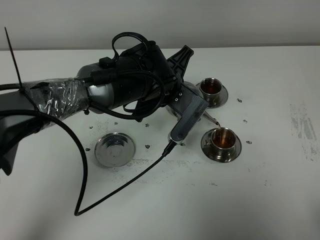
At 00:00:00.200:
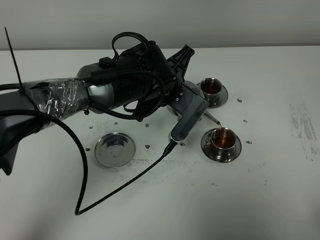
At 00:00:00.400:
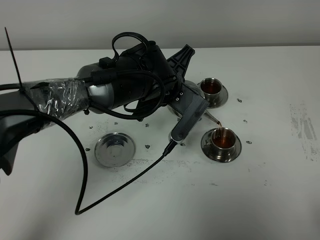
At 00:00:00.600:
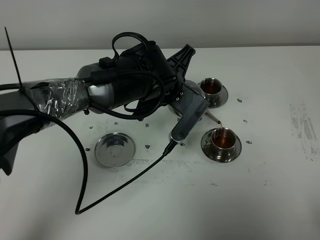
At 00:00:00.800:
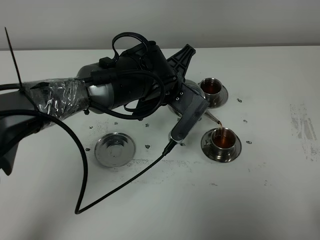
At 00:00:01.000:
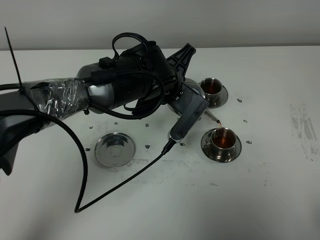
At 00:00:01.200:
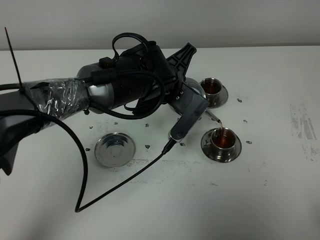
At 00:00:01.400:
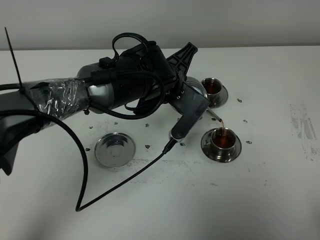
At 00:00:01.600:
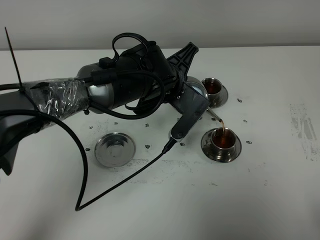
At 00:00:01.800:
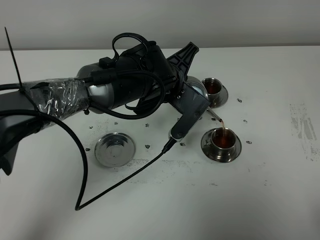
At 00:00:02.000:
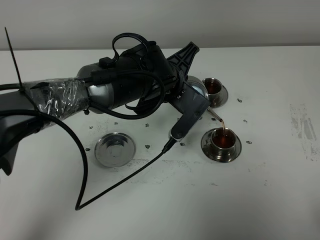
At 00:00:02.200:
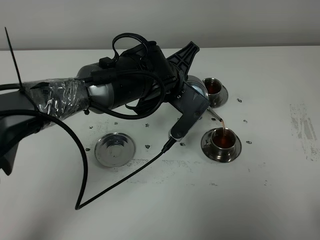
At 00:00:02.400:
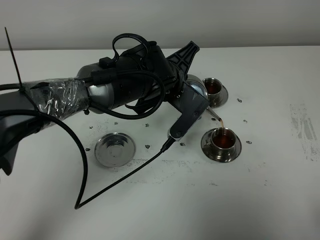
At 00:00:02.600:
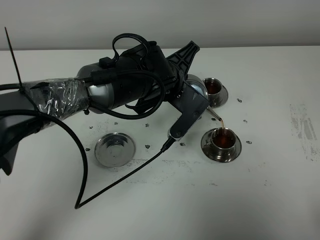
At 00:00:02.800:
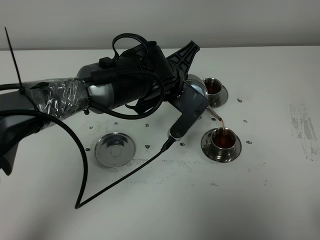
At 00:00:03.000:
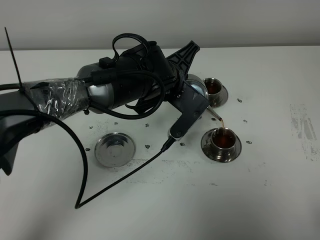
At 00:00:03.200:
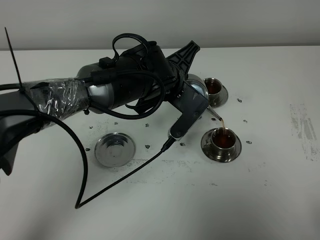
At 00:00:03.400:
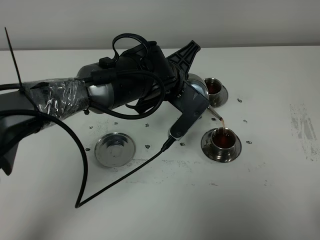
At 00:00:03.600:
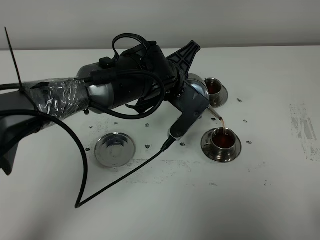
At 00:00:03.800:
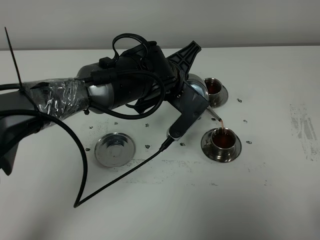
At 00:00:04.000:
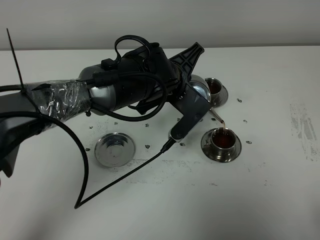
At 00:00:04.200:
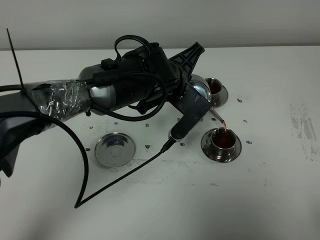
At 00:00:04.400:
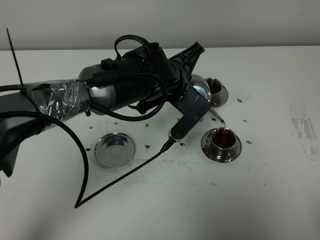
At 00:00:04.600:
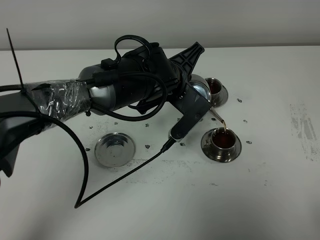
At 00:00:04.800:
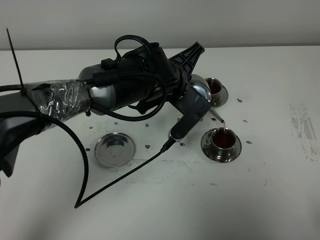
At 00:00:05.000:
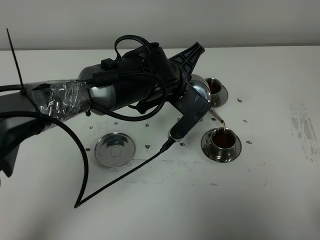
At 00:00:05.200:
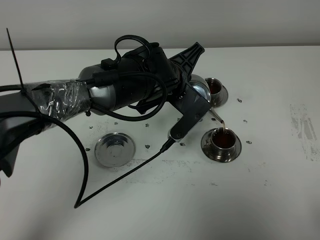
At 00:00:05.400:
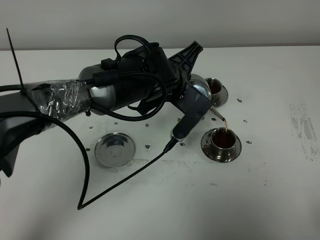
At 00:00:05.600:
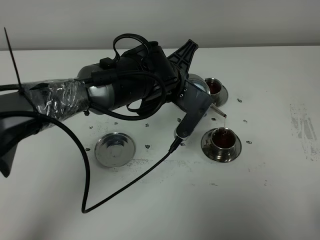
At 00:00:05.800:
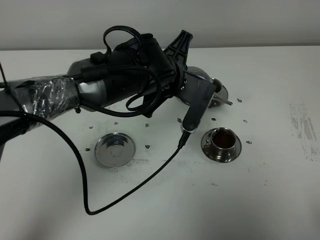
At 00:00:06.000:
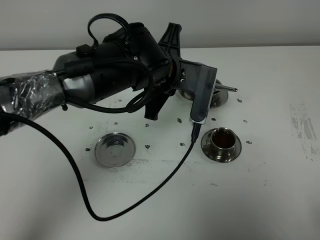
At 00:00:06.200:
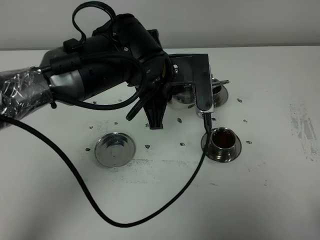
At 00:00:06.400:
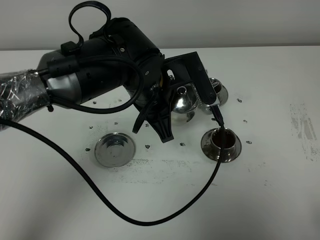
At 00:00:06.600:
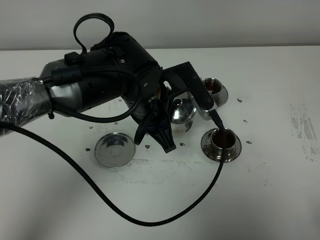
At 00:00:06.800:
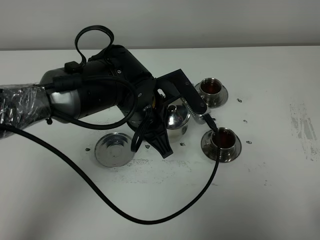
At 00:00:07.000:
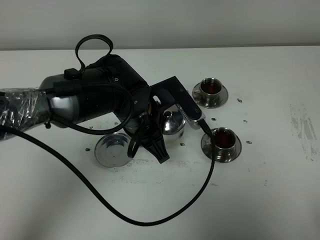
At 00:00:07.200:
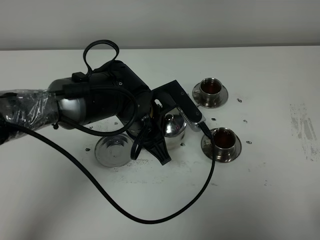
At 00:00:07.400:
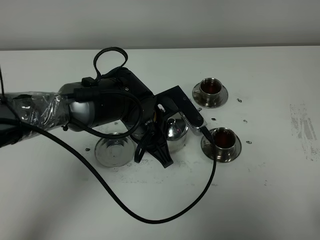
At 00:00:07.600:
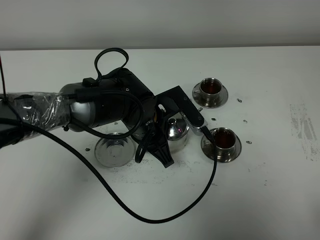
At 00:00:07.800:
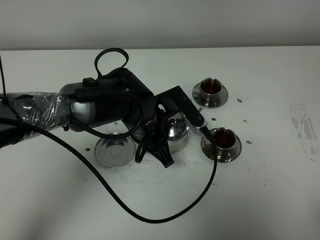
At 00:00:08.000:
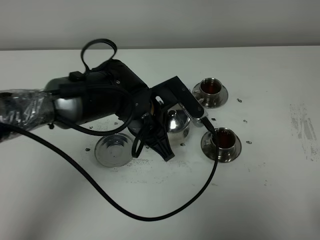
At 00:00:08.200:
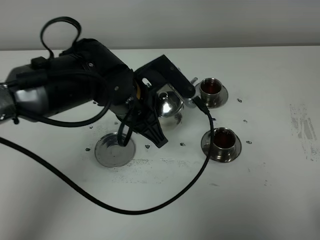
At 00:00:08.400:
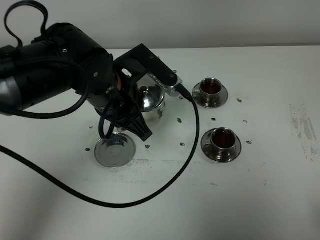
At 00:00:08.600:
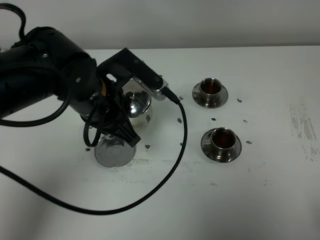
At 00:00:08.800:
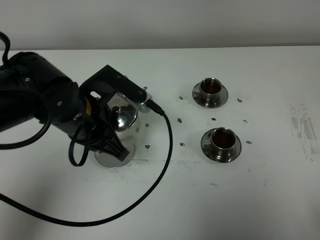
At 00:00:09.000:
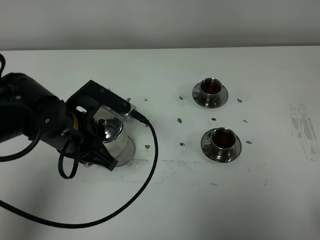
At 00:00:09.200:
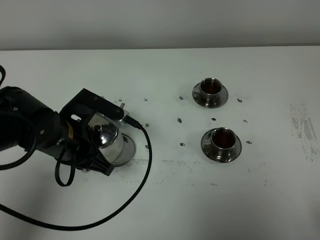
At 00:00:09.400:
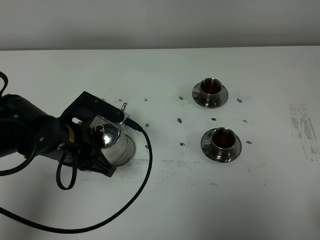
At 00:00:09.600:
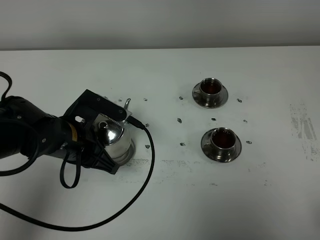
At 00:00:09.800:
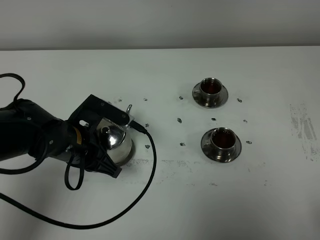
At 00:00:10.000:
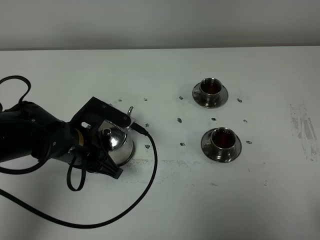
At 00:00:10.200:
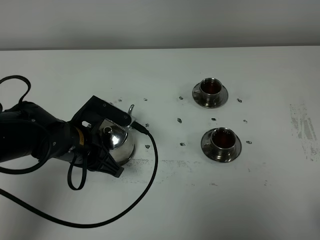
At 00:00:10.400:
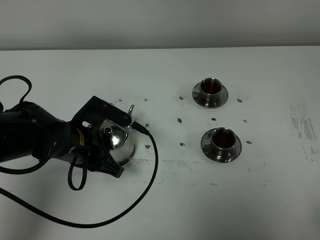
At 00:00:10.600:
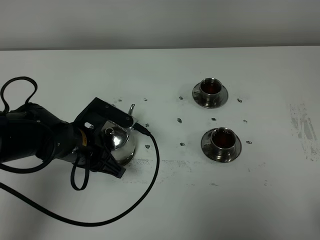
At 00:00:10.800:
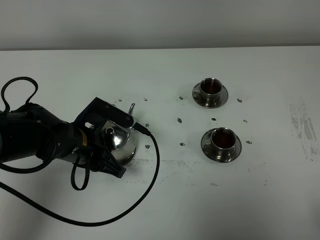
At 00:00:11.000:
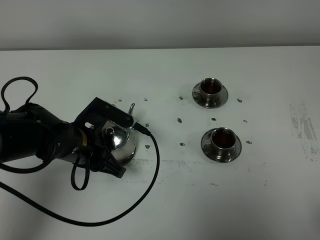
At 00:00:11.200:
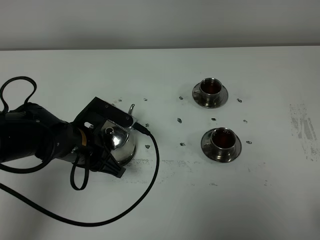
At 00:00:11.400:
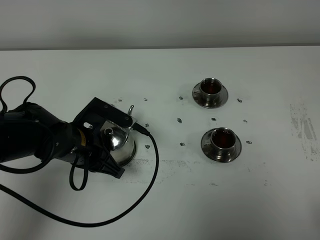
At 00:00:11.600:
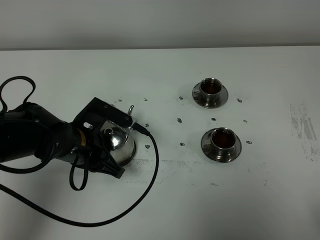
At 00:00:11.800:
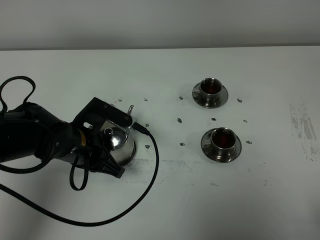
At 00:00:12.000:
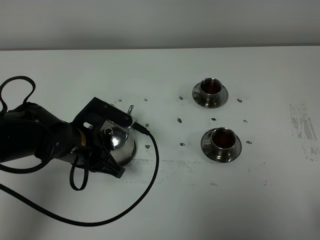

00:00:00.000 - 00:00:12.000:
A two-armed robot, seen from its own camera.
Task of the whole recording: grasp the stainless steel teapot and pour the tea into the two stainless steel teacups one by one, put the stainless steel teapot back in its original place.
Step, 00:00:00.000 - 00:00:05.600: Pour tea into the teacup with the left gripper.
00:00:00.000 - 00:00:01.600: Neither gripper changes place.
00:00:01.600 - 00:00:04.400: Both grippers stay put.
00:00:06.000 - 00:00:07.600: The left gripper travels downward by some 10 cm.
00:00:07.600 - 00:00:09.000: The left gripper is displaced to the left by approximately 10 cm.
00:00:09.000 - 00:00:10.400: The grippers move only a little.
00:00:10.400 - 00:00:12.000: Both grippers stay put.

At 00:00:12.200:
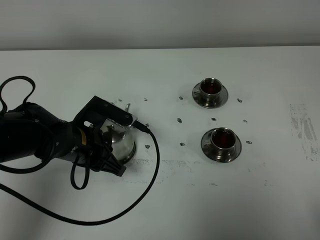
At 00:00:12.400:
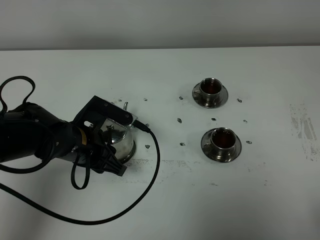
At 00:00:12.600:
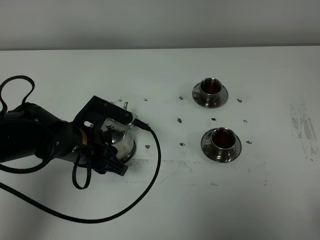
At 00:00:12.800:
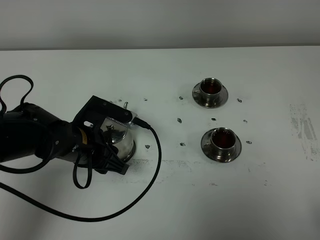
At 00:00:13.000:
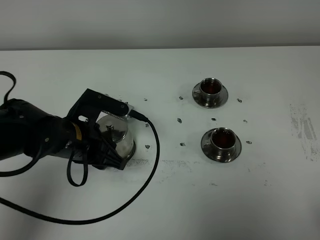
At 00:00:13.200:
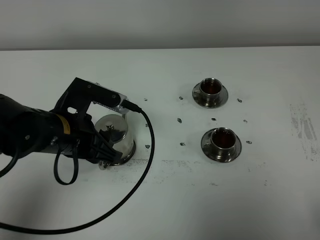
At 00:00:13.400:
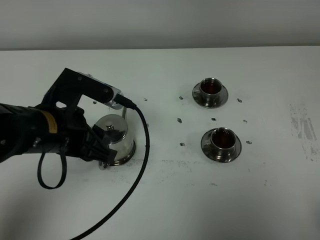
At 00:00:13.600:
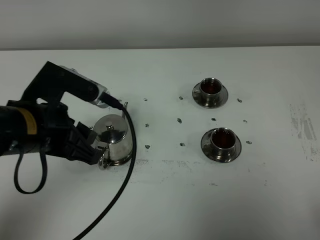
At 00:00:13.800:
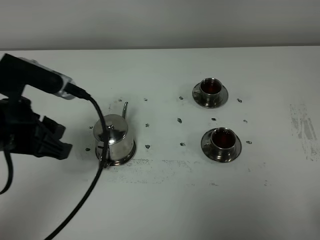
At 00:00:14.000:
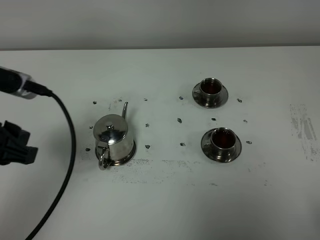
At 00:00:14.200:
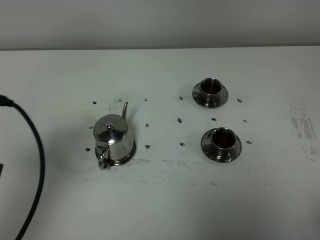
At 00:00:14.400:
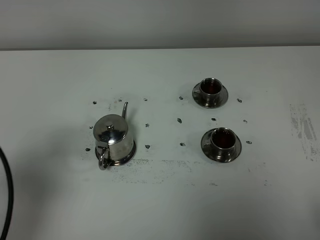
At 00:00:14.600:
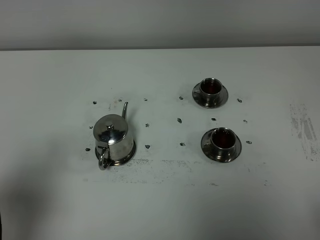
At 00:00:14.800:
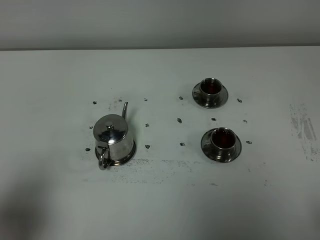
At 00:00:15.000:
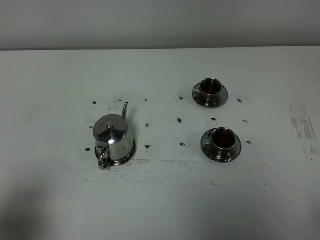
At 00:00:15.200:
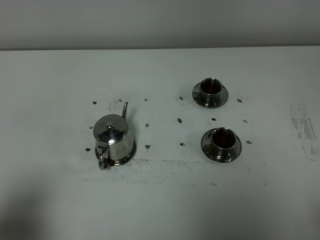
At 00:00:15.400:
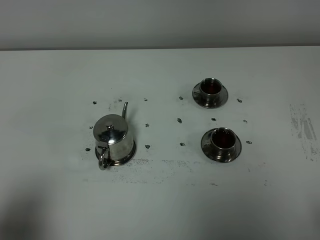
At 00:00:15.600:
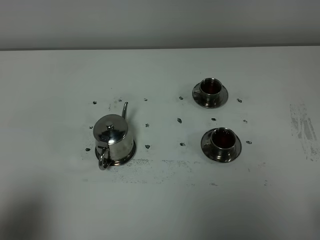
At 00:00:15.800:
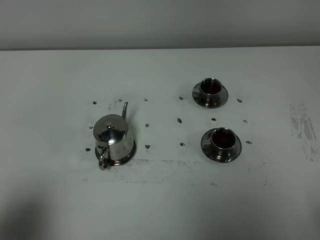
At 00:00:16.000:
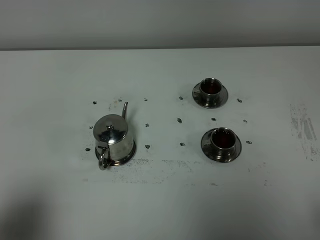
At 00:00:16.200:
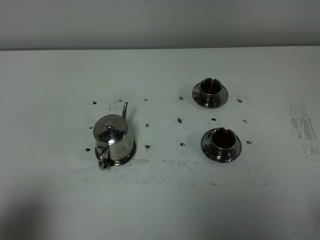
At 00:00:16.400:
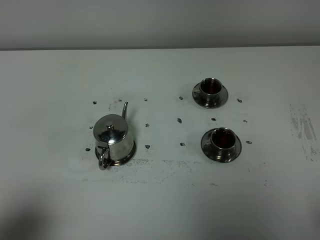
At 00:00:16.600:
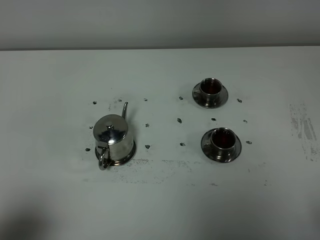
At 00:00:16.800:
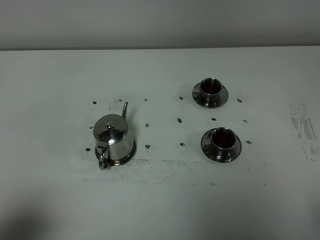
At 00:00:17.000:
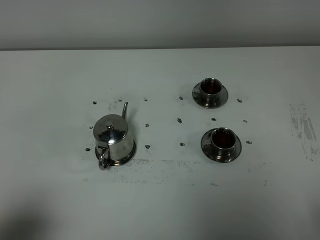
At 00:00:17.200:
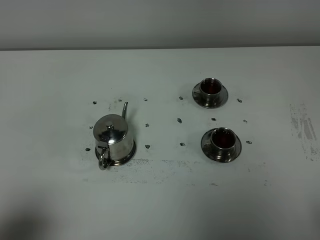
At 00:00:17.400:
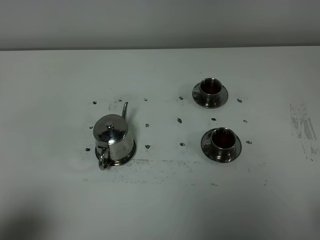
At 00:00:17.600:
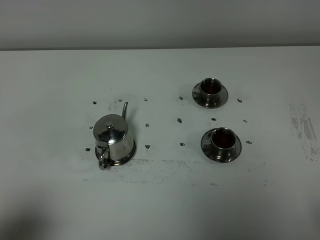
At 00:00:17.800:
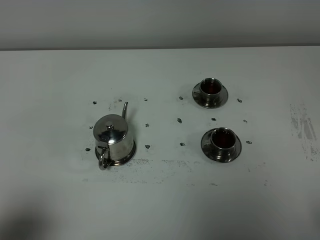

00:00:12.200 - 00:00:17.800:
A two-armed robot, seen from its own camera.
Task of the whole recording: grasp the stainless steel teapot and pour the tea into the two stainless steel teacups one by one, put the stainless steel teapot back in its original place.
00:00:12.200 - 00:00:13.600: The left gripper goes approximately 15 cm upward and backward.
00:00:13.600 - 00:00:15.000: The left gripper heads backward and to the left, covering roughly 20 cm.
00:00:16.400 - 00:00:17.800: The two grippers keep their place.
